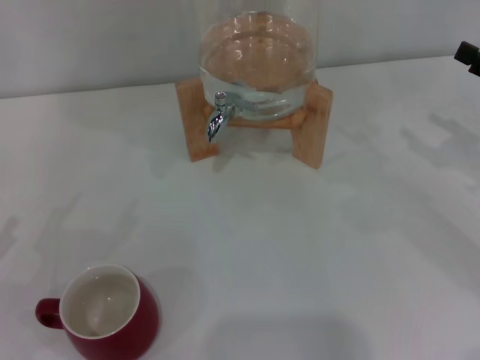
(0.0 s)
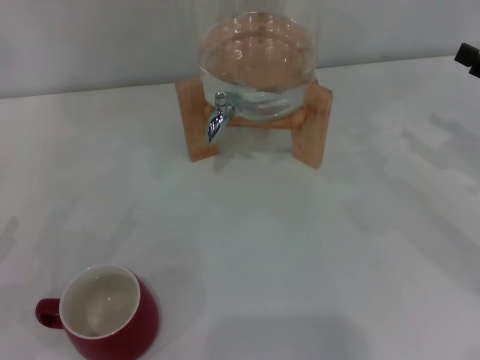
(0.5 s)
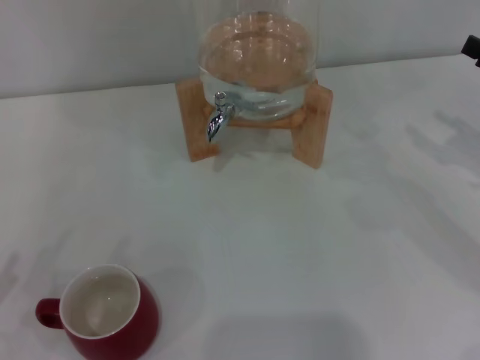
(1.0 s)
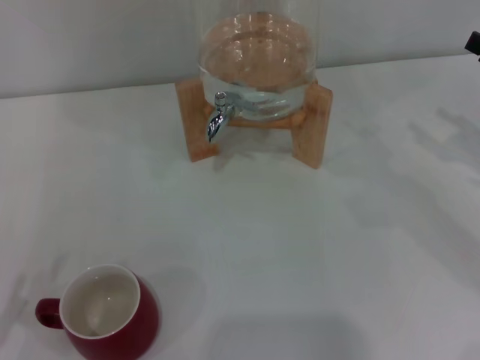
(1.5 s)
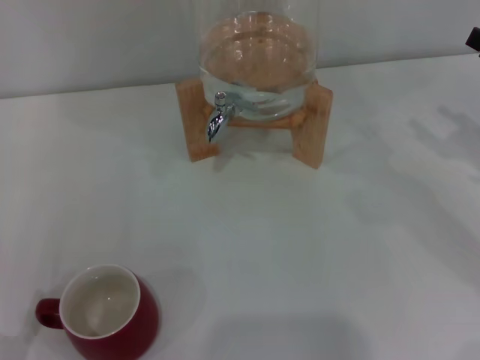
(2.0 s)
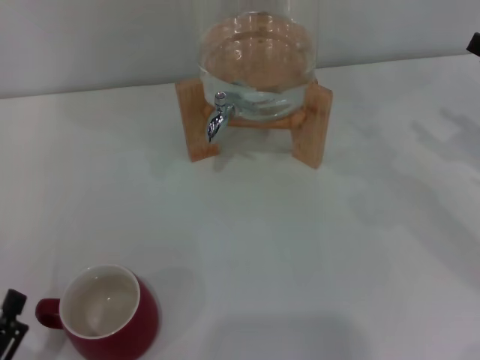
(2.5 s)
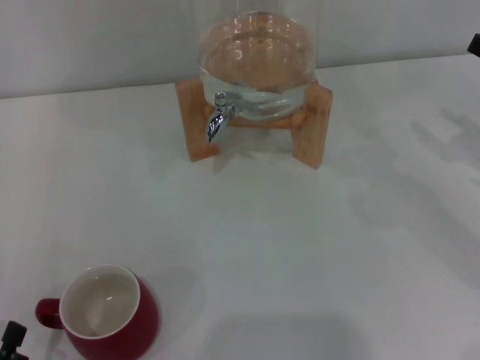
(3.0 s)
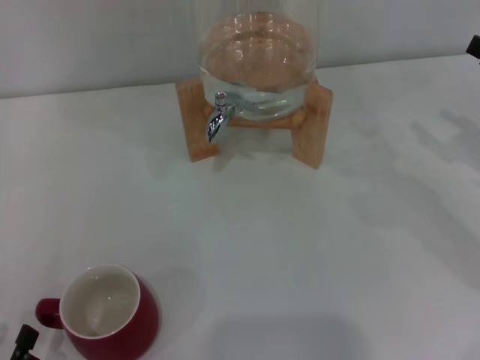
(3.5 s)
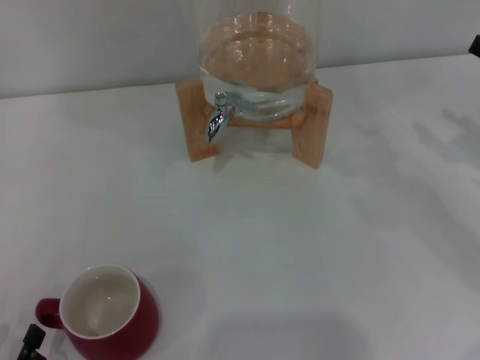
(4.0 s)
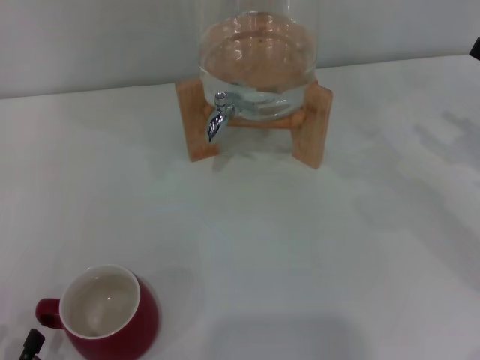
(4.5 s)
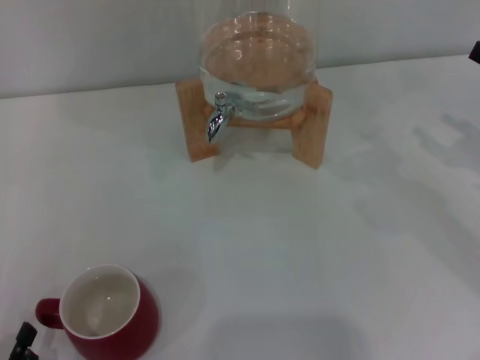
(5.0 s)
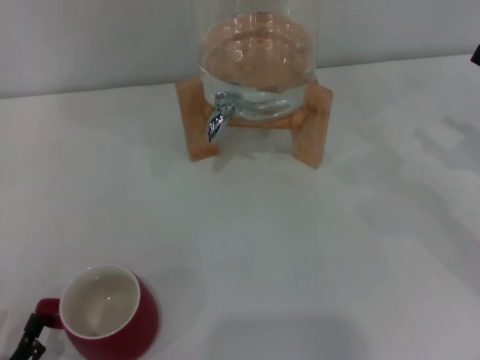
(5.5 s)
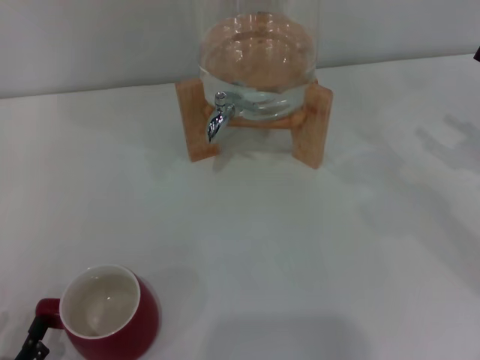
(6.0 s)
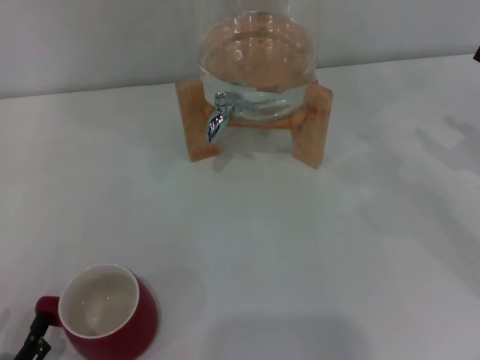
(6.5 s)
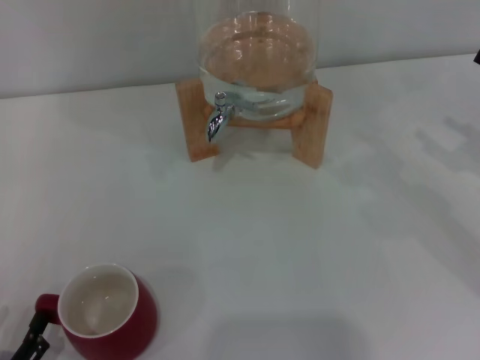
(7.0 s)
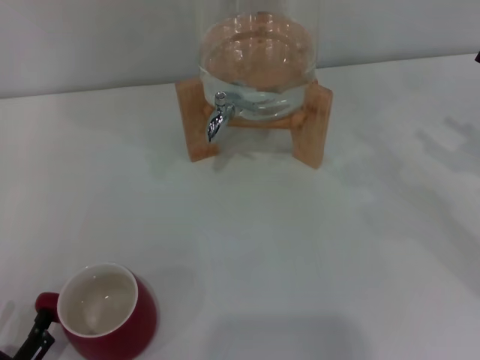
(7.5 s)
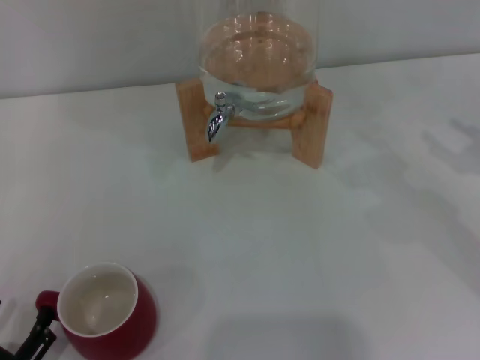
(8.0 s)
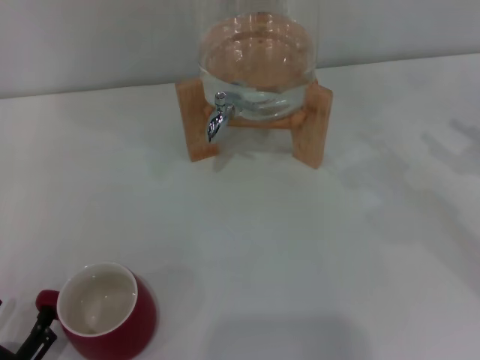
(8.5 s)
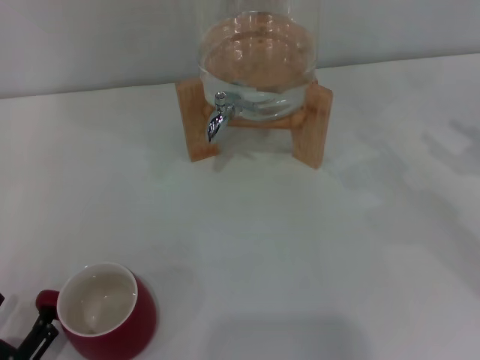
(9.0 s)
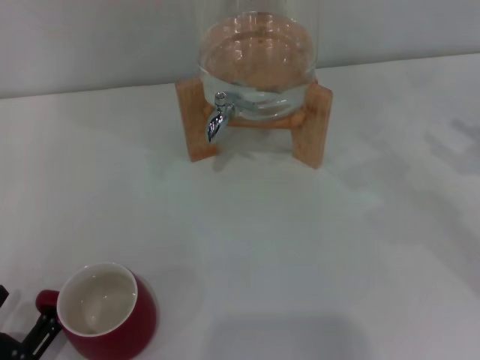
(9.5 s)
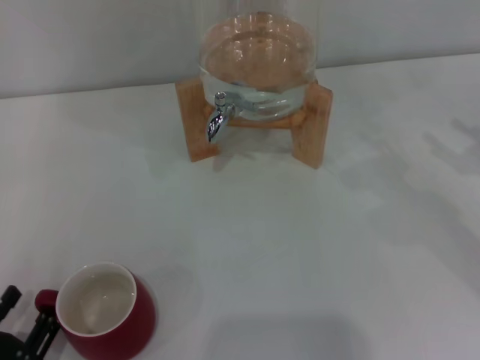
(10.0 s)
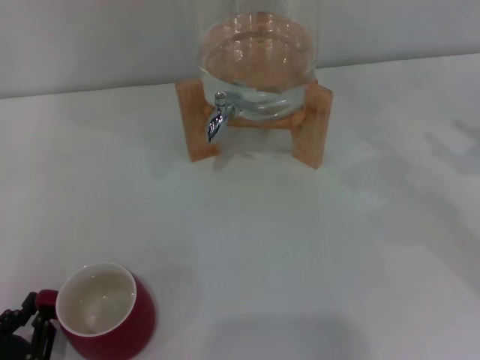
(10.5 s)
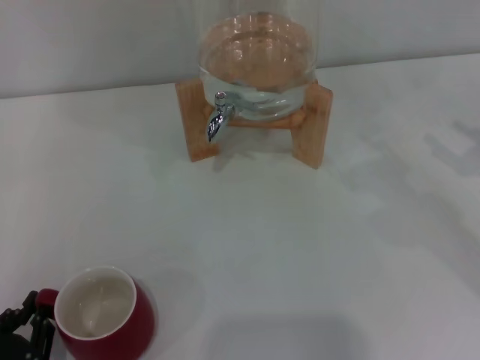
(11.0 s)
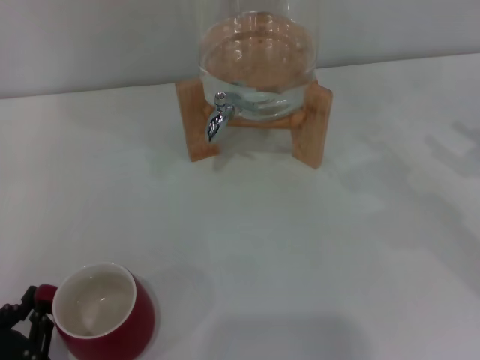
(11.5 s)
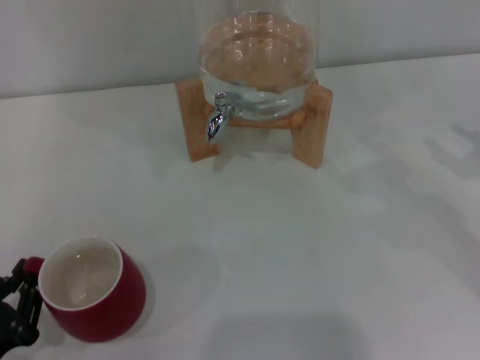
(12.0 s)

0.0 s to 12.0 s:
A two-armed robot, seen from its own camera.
Task of the whole recording: the left gripper pick up the red cup and place it horizontally under the faucet, the right gripper turn on the faucet to fill the cup, and then turn off the faucet.
6.0 to 8.0 s: There are only small adjustments of the grippers.
8.0 to 10.0 s: The two grippers keep their place.
10.0 to 12.0 s: The left gripper closes up.

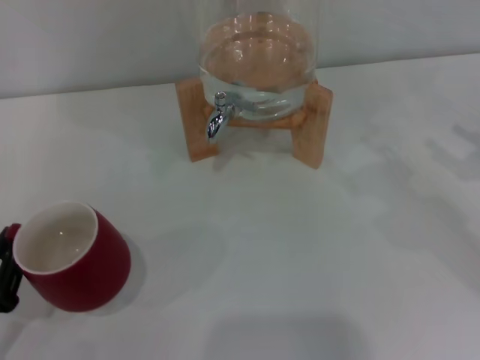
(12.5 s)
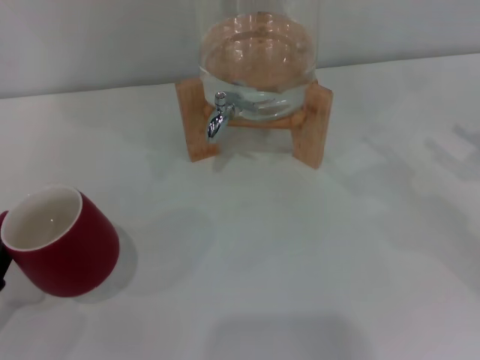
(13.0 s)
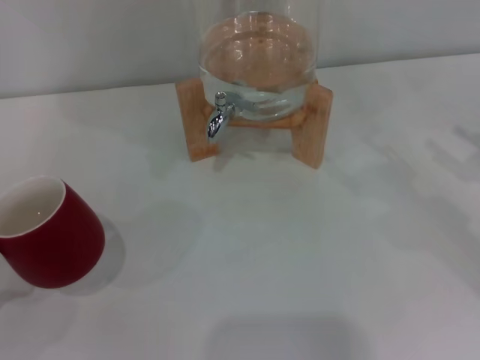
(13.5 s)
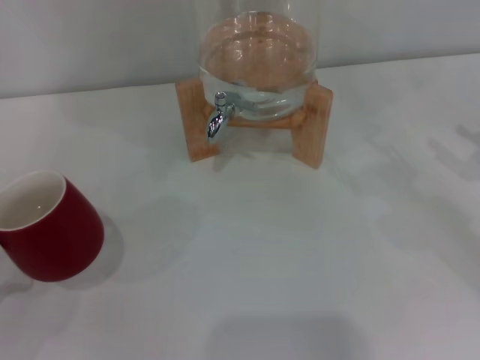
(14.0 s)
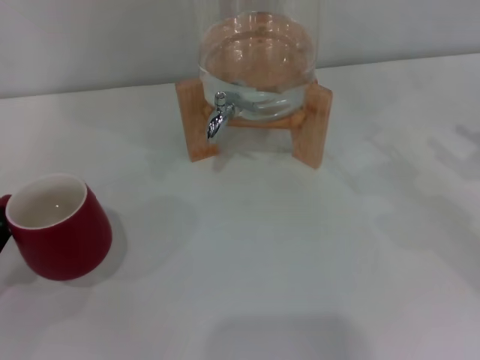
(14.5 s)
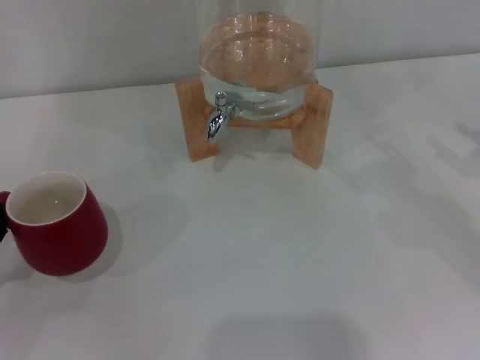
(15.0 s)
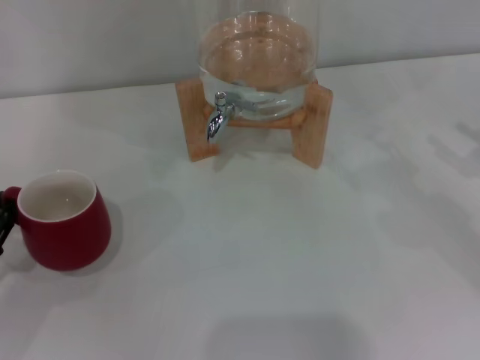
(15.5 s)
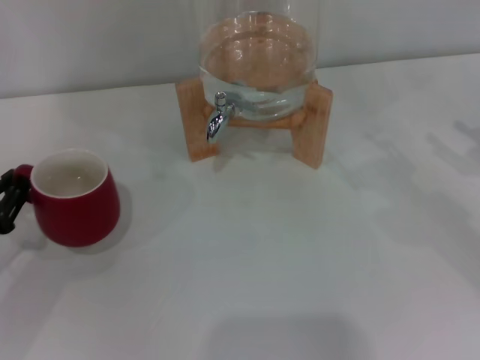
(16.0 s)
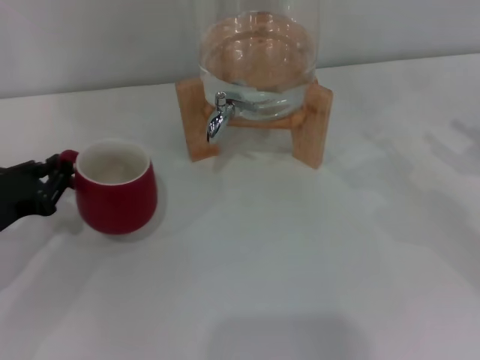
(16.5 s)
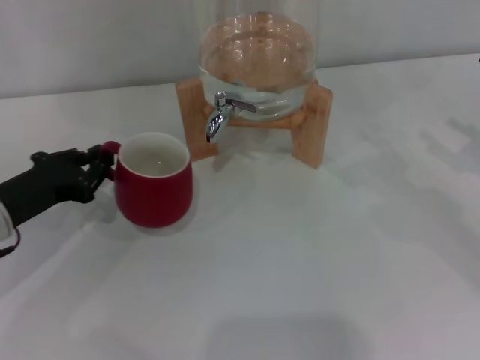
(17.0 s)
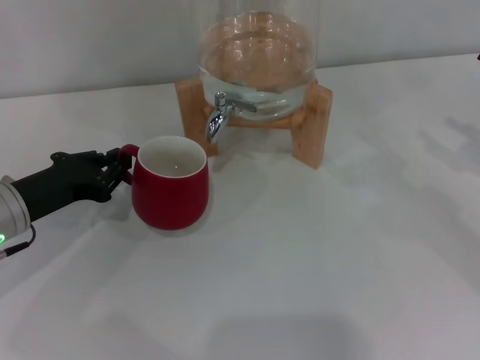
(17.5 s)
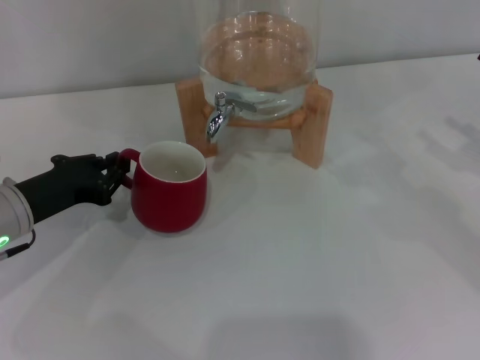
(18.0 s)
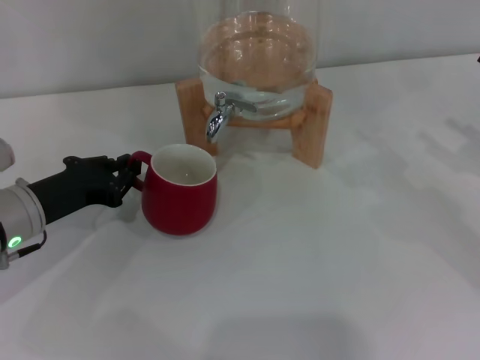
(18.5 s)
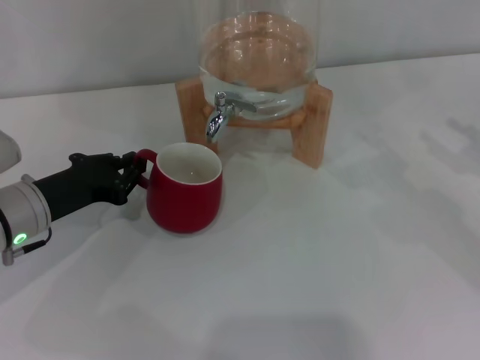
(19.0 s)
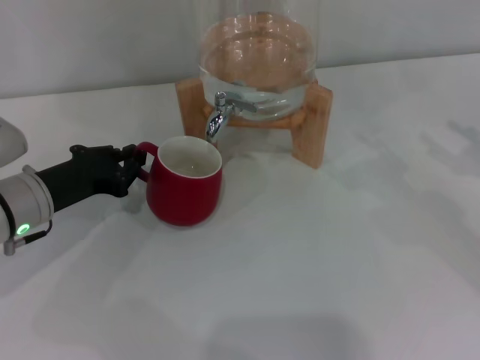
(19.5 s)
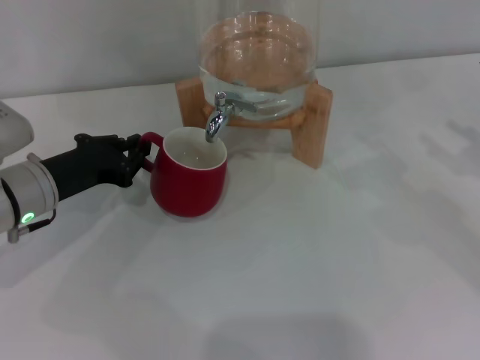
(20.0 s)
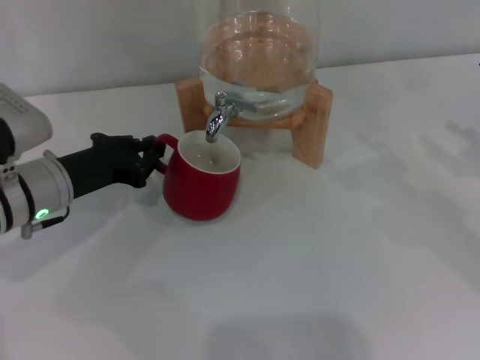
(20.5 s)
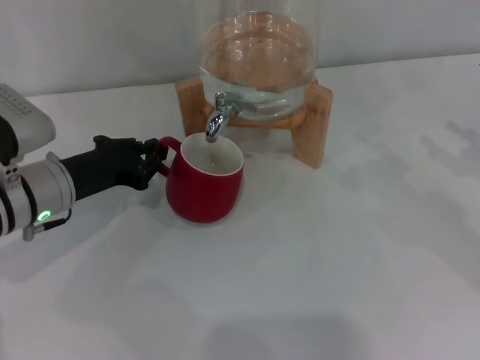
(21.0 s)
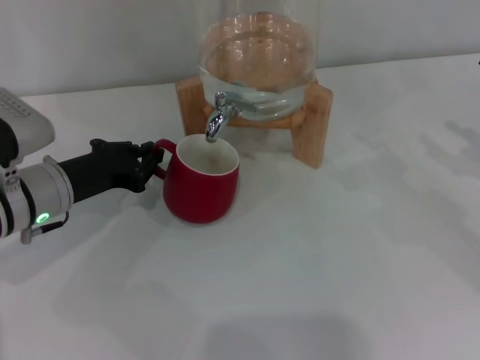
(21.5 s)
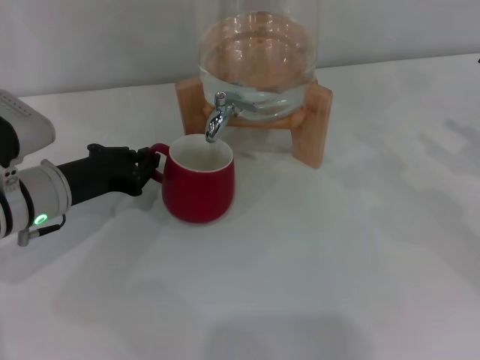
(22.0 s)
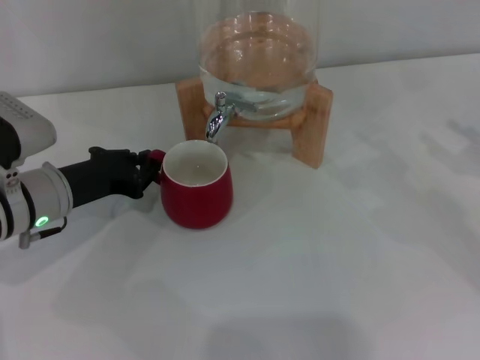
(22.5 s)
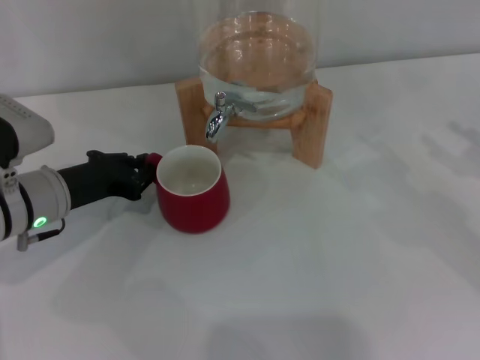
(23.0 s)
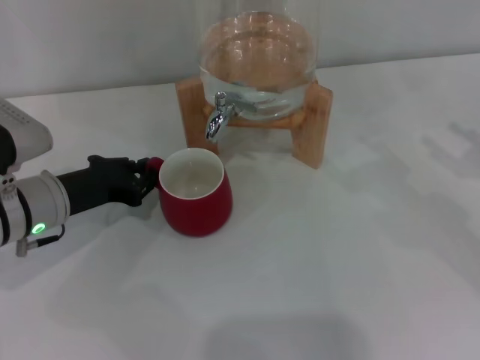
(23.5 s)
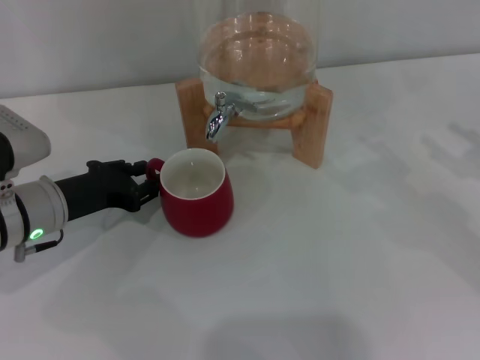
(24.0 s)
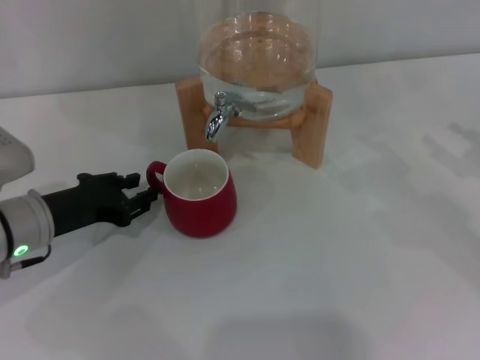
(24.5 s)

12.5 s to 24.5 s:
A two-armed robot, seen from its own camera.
Task of the whole recording: the left gripper pick up the red cup and place it horizontally under the faucet, the right gripper turn on the faucet to fill the cup, and then turn off the faucet.
12.5 to 14.5 s: The left gripper shifts approximately 5 cm forward.
14.5 to 16.5 s: The left gripper is displaced forward by approximately 5 cm.
16.5 to 18.5 s: The left gripper heads to the right, covering roughly 5 cm.
18.5 to 20.5 s: There are only small adjustments of the grippers.
20.5 to 22.5 s: Neither gripper changes place.
22.5 to 24.5 s: The left gripper opens.

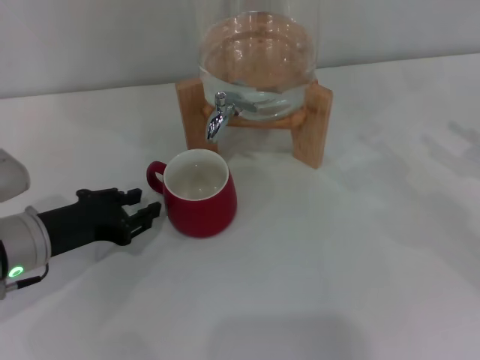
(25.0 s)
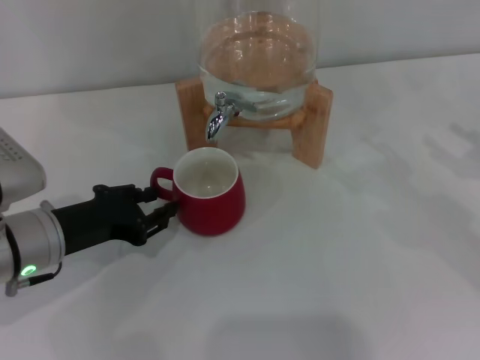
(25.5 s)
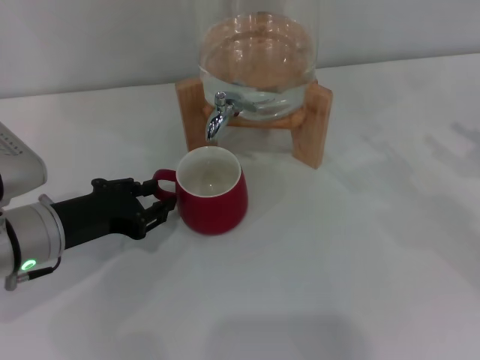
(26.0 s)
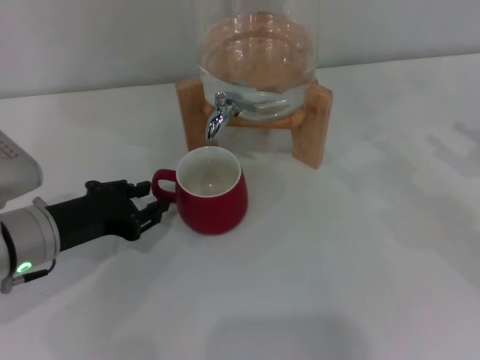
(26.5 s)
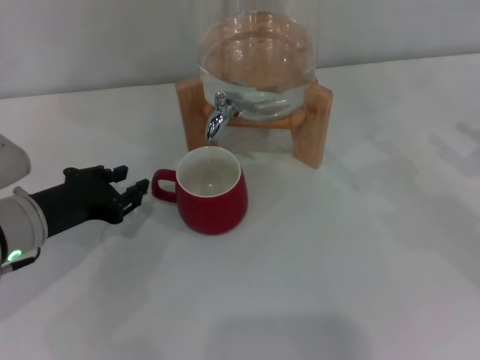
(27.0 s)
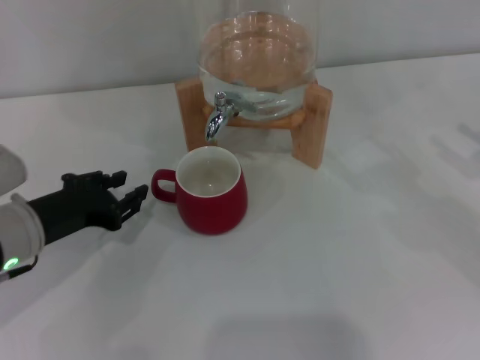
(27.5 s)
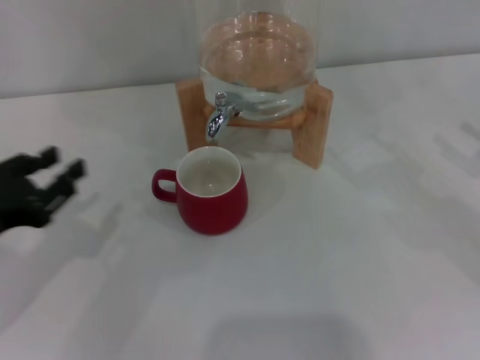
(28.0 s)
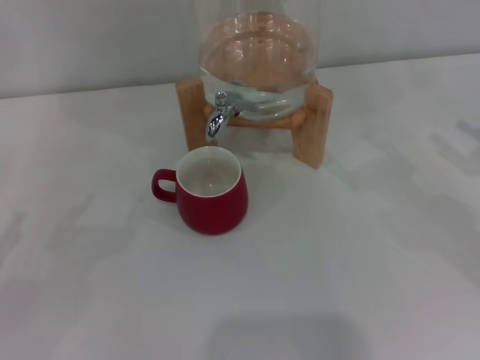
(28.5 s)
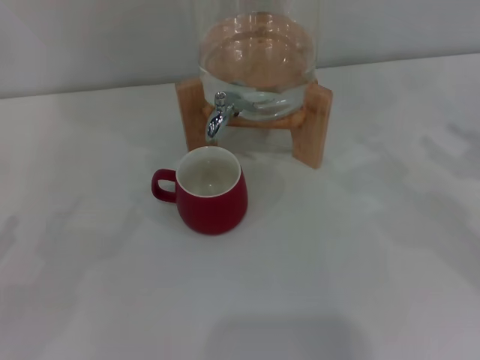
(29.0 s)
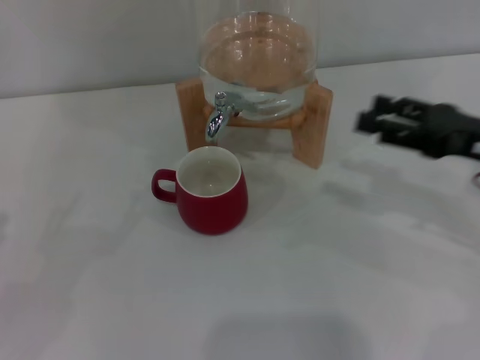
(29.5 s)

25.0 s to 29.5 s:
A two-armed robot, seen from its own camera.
Task of the whole recording: the left gripper pick up the red cup and place it horizontally under the faucet, the right gripper turn on the faucet to fill the cup, and then turn off the faucet.
25.0 to 27.0 s: The grippers move only a little.
27.0 to 29.5 s: The left gripper goes some 20 cm to the left and backward, and opens up. The right gripper travels to the left by roughly 10 cm.
